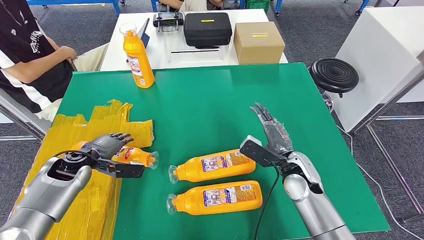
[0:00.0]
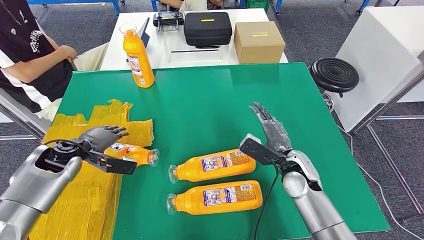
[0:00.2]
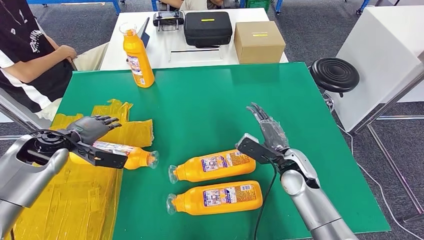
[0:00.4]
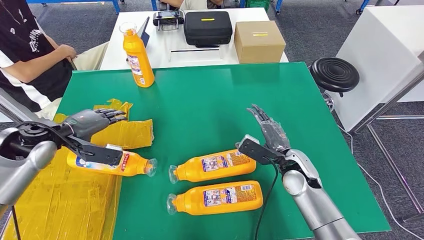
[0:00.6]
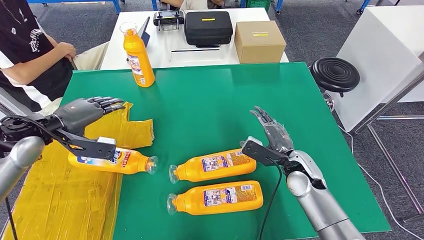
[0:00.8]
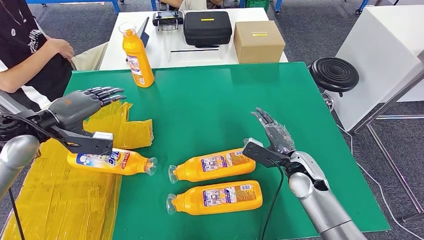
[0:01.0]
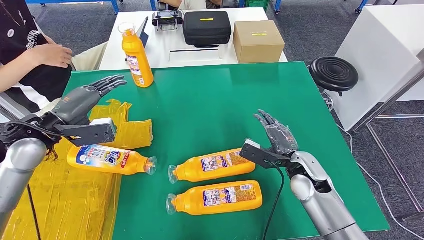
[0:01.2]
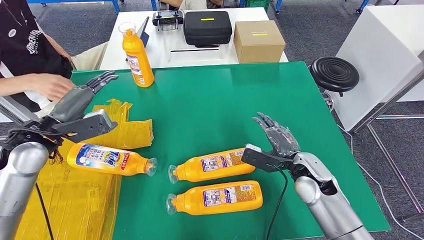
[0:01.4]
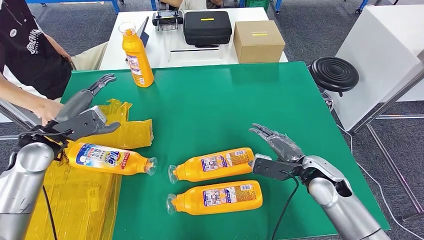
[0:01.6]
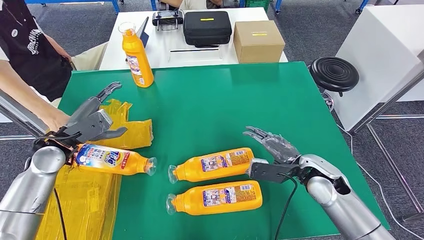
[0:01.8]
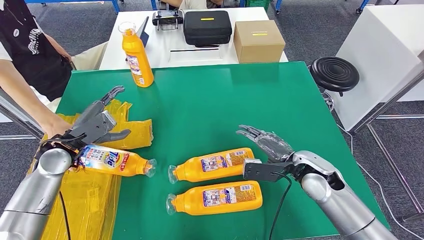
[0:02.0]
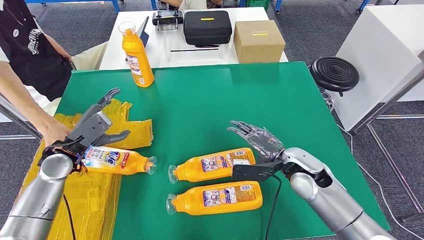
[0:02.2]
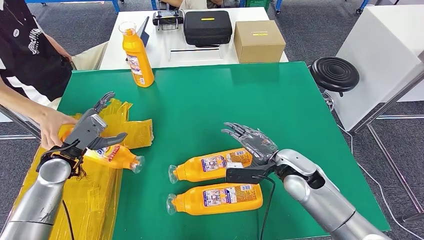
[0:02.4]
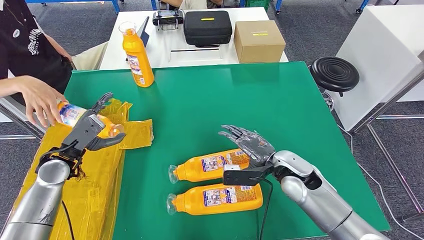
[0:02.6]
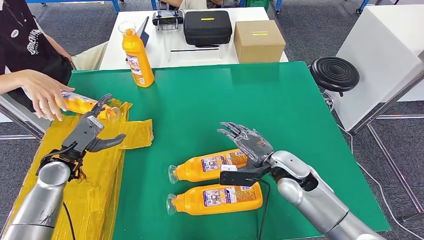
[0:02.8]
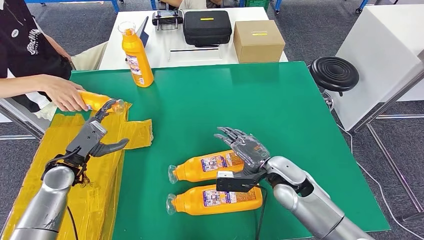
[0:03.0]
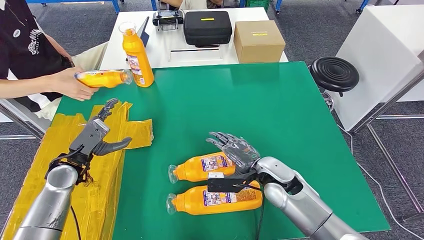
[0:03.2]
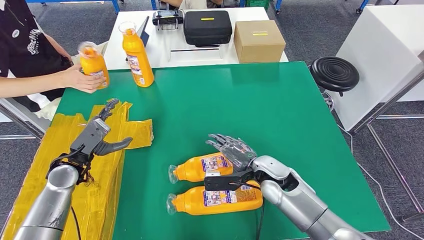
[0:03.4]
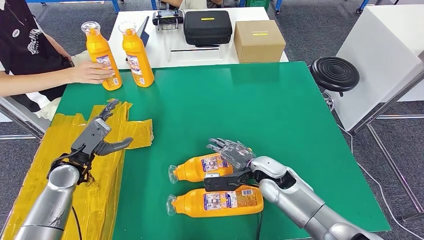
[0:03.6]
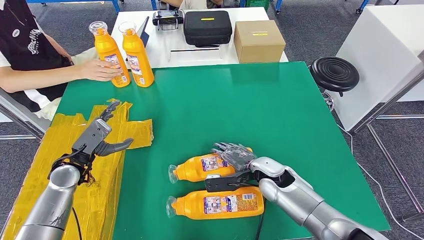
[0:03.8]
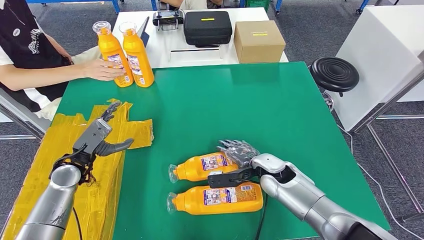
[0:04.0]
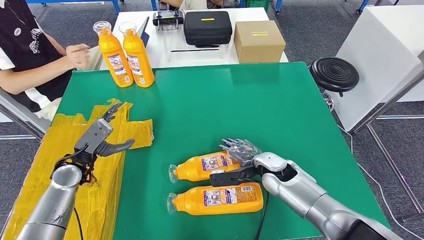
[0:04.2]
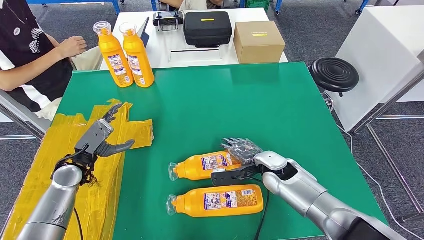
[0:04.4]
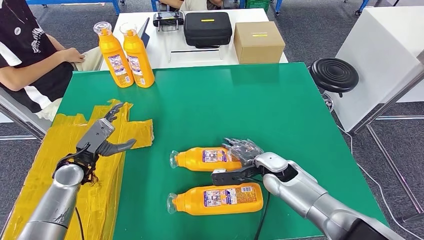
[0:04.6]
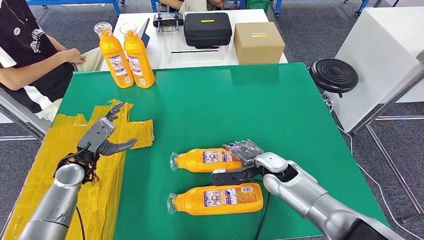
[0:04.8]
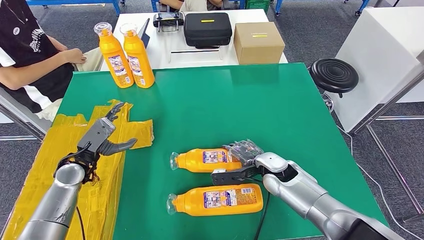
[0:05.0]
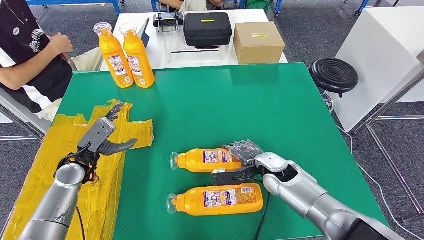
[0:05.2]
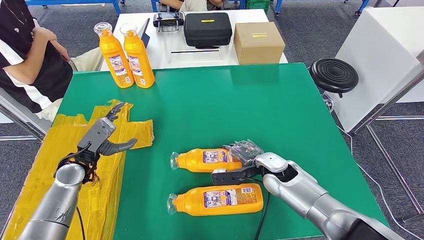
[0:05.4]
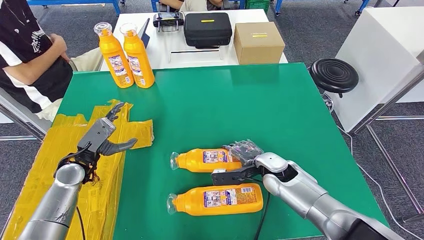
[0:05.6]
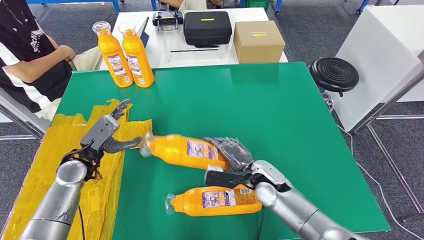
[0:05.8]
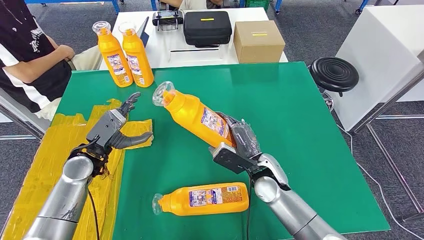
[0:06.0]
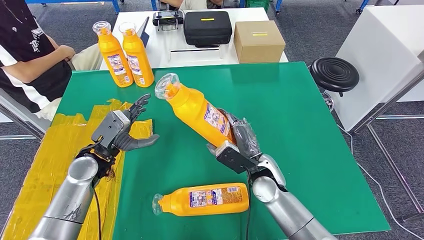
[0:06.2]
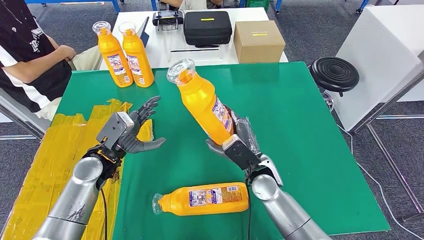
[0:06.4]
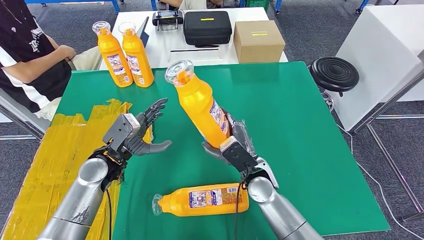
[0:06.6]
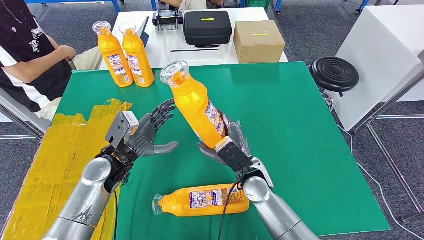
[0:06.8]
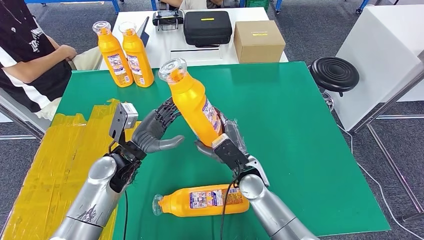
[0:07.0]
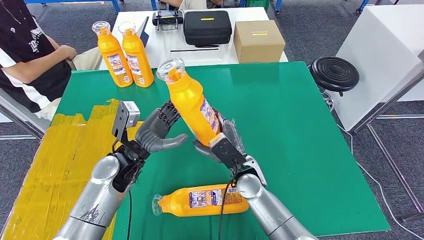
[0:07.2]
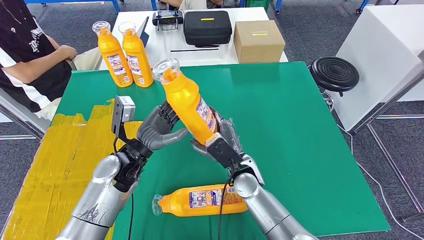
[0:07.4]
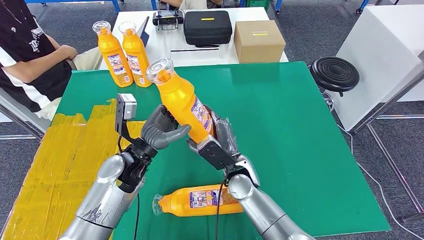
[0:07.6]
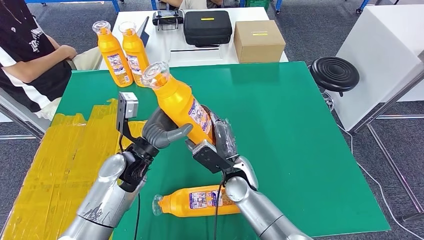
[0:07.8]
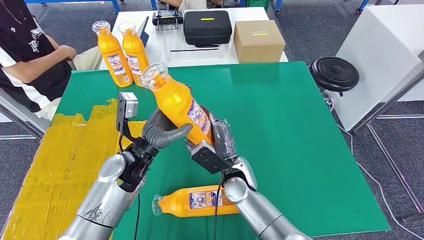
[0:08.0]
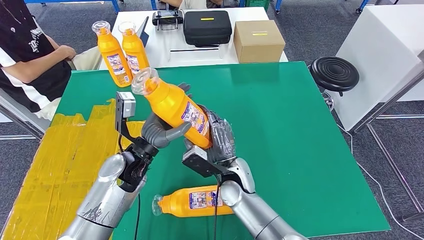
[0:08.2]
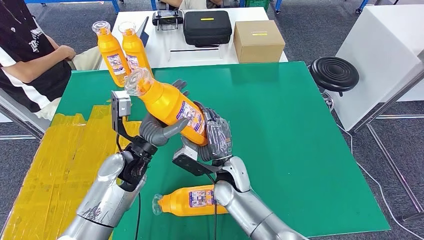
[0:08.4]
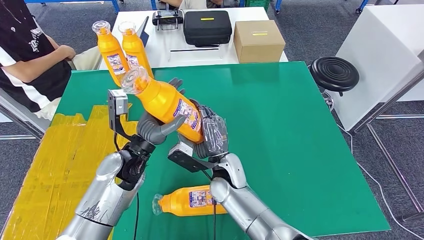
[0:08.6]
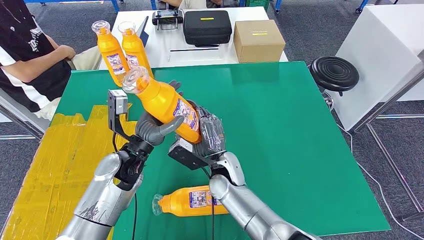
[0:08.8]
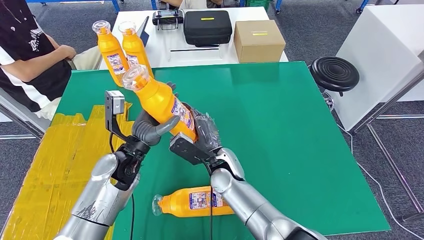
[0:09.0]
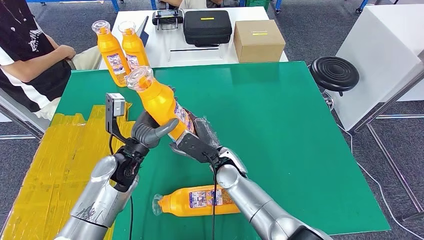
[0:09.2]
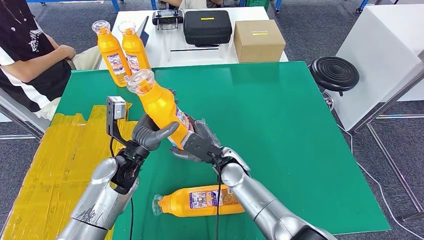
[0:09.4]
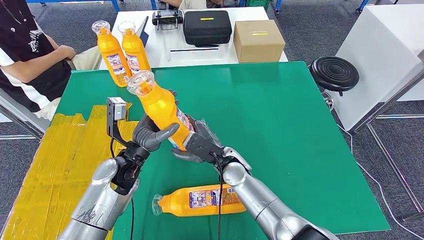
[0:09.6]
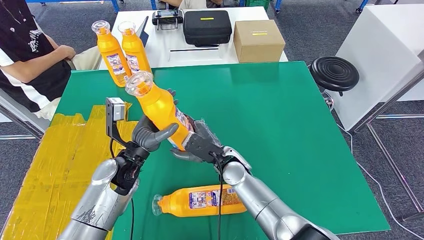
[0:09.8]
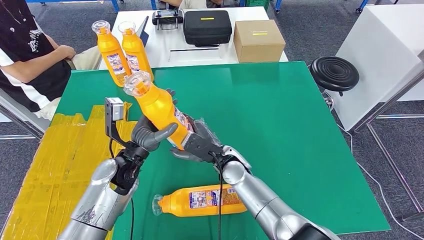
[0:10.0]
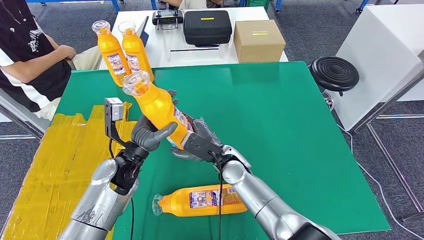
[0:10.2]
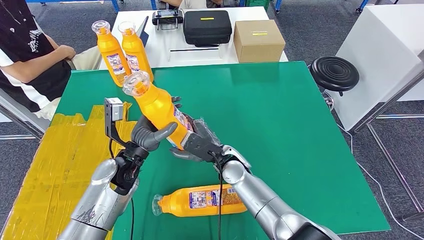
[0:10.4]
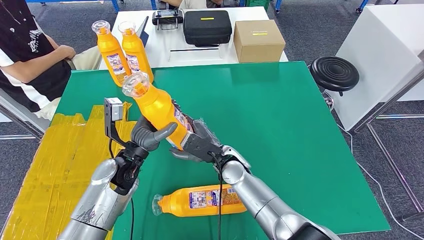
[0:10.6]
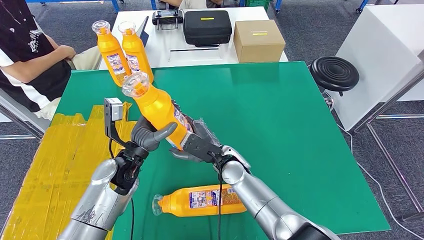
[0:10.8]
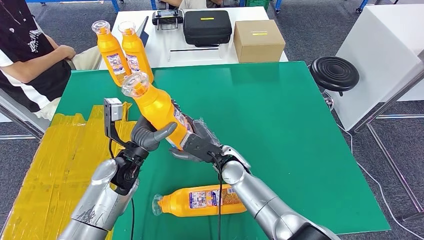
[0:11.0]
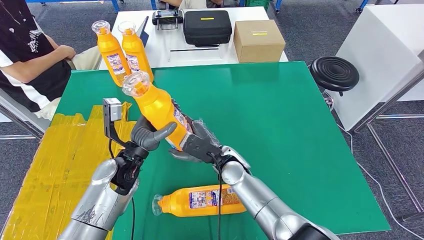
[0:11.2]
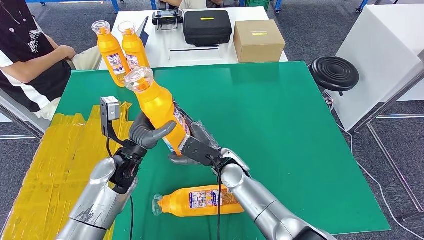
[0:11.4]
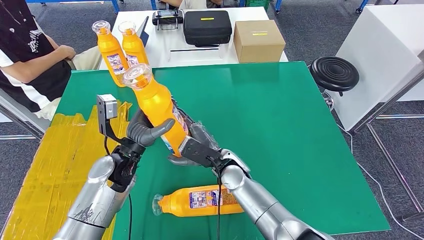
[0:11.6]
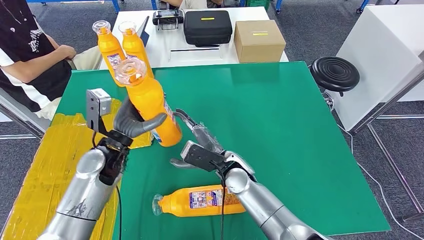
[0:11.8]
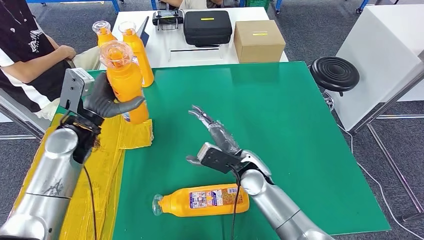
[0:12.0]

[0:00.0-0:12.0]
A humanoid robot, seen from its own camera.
Step, 0:00.4 to 0:10.0: Pick up the fast-moving consumer goods bottle from the table.
0:06.0 to 0:07.6: The left hand is displaced to the right by some 10 cm; the right hand shifts roughly 5 cm to the left.
0:07.6 to 0:09.0: The right hand shifts roughly 5 cm to the left.

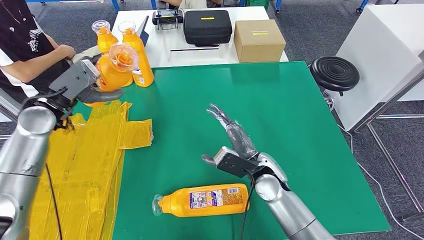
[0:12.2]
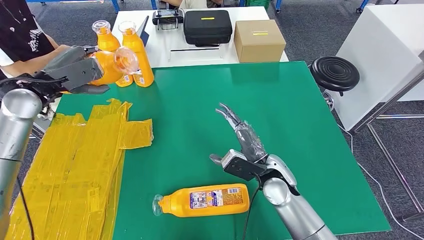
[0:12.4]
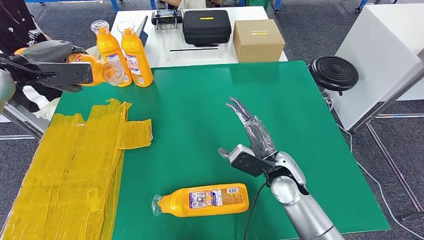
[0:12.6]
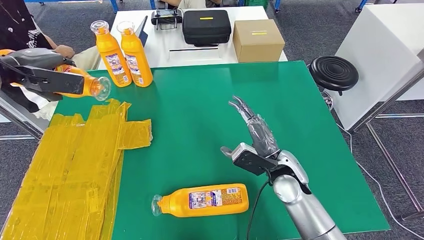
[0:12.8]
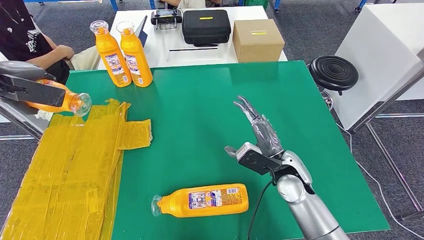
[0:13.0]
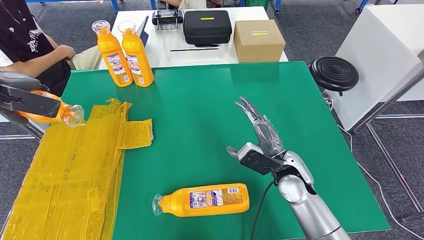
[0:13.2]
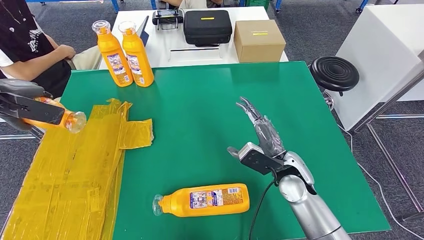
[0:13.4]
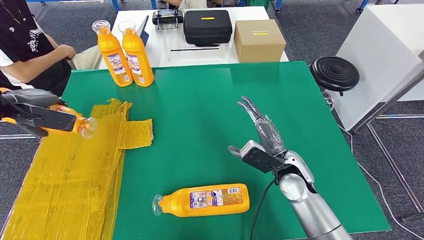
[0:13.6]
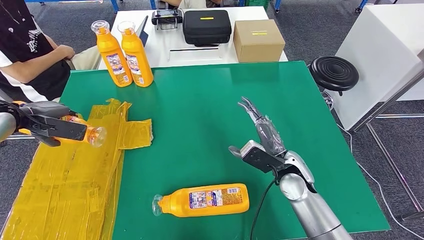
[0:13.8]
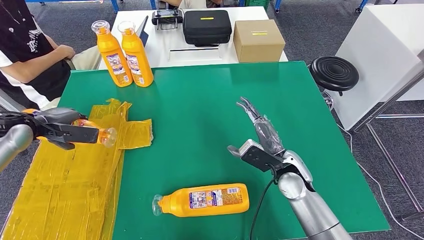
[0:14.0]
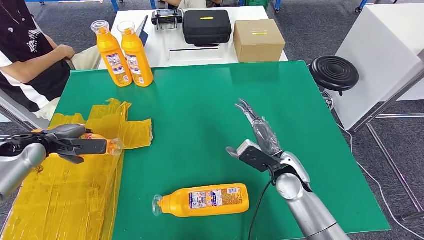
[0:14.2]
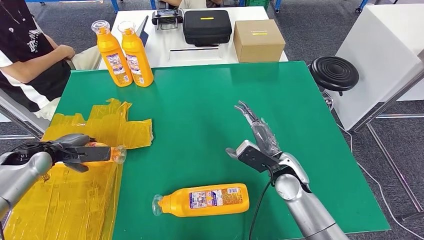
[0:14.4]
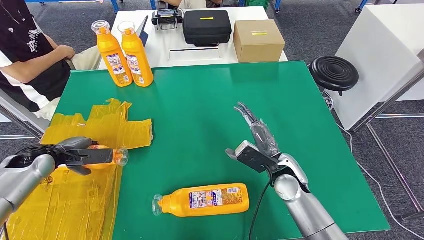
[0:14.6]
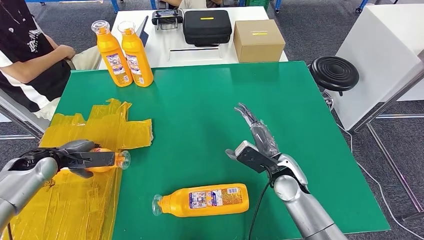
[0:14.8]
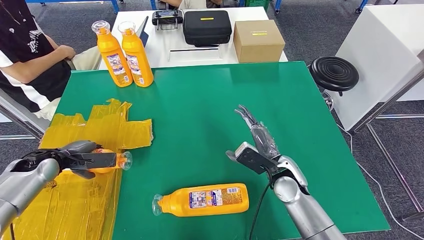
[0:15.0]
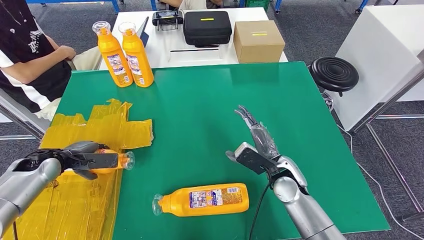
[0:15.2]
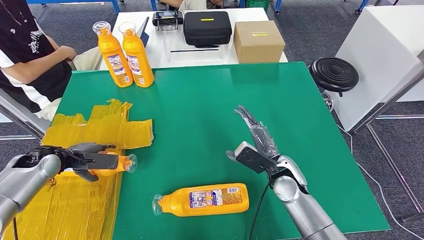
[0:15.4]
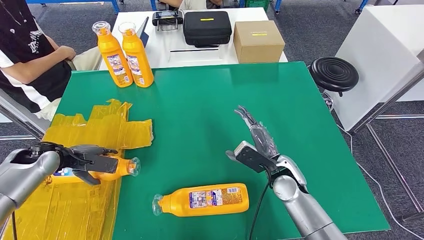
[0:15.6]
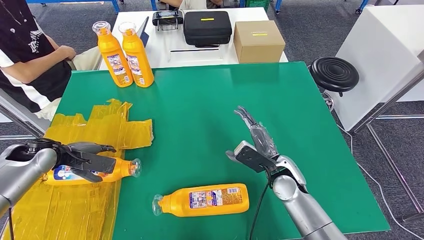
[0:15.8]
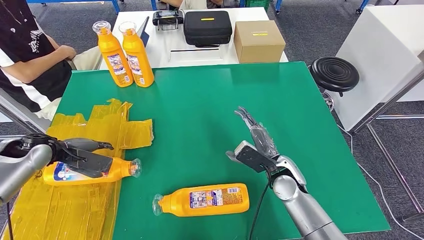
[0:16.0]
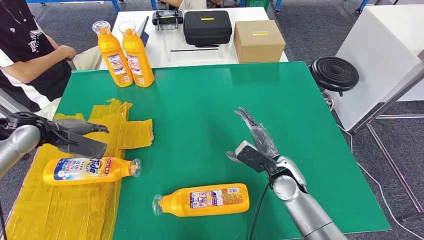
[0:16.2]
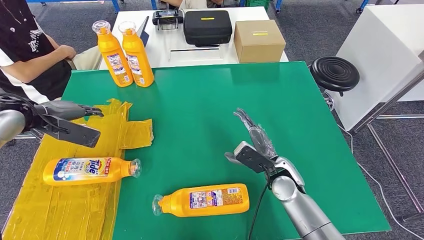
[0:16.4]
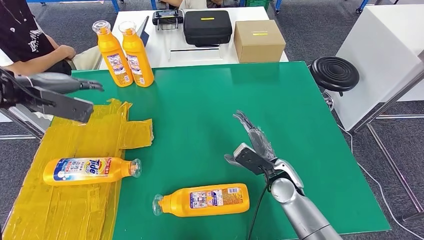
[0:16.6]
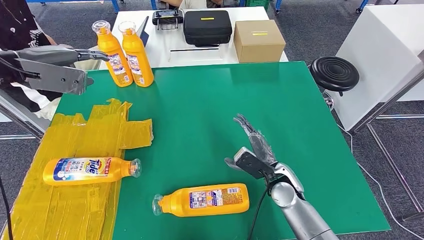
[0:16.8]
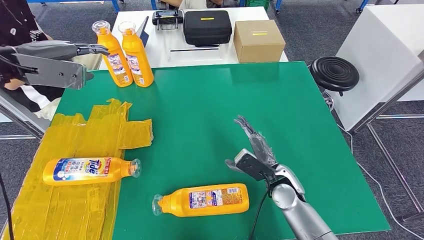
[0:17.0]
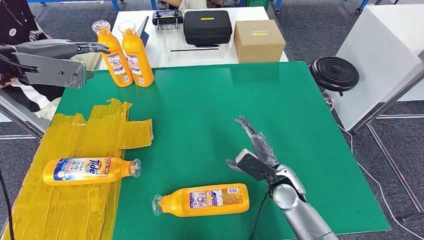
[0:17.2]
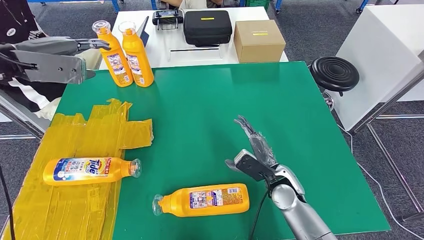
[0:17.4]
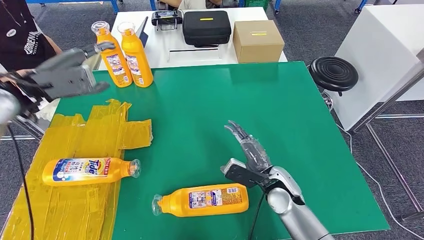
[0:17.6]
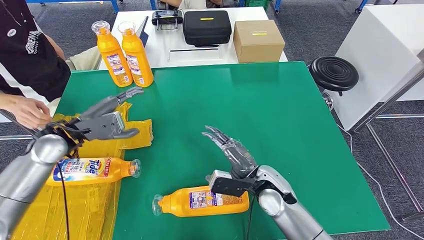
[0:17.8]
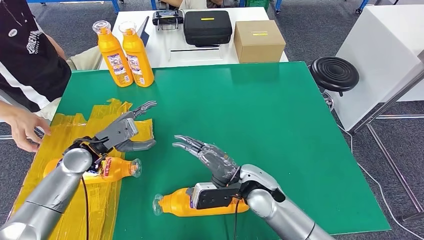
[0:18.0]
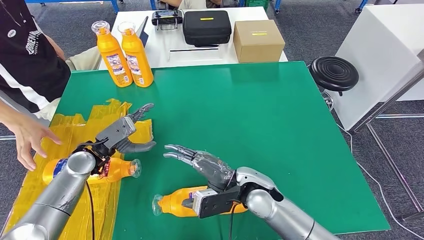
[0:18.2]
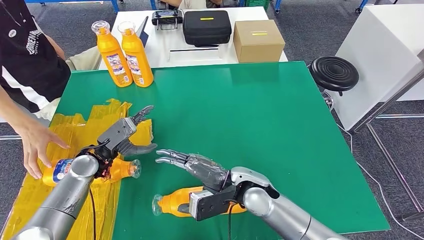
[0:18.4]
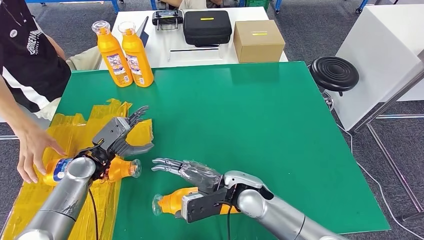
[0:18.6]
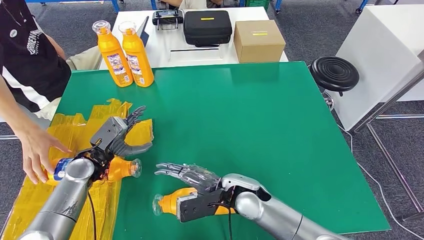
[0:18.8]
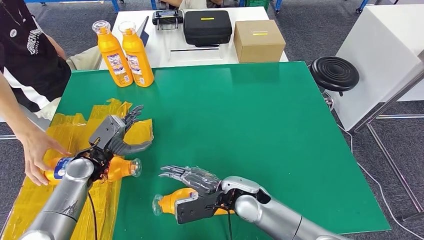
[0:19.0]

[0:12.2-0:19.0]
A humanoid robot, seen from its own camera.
0:12.2 to 0:13.6: The right hand shifts some 5 cm to the right, while the left hand shifts about 15 cm to the left.
0:13.6 to 0:15.0: The left hand heads downward, covering approximately 20 cm.
0:15.0 to 0:16.2: The left hand moves upward, roughly 10 cm.
0:16.2 to 0:17.6: The left hand shifts about 10 cm upward.
